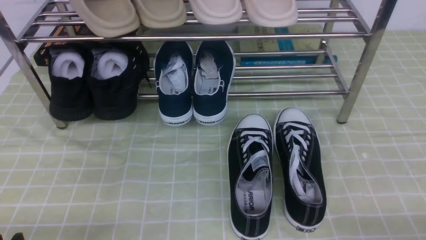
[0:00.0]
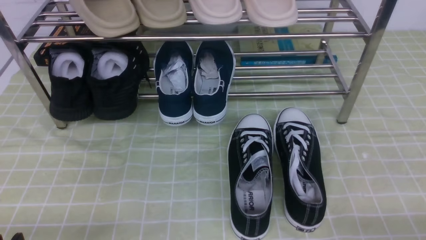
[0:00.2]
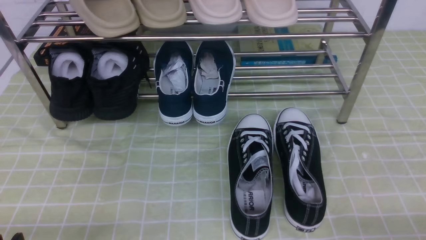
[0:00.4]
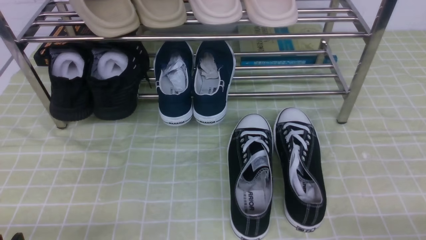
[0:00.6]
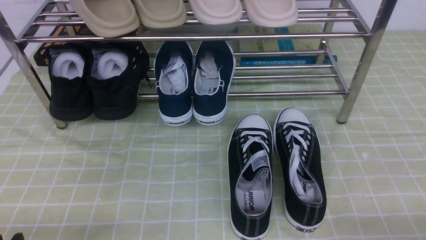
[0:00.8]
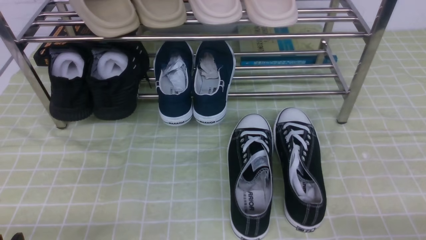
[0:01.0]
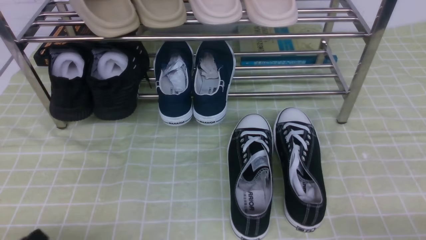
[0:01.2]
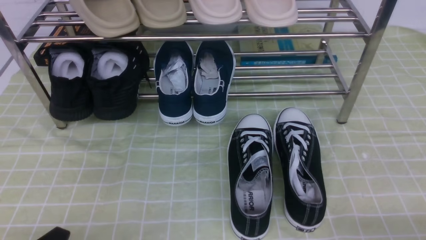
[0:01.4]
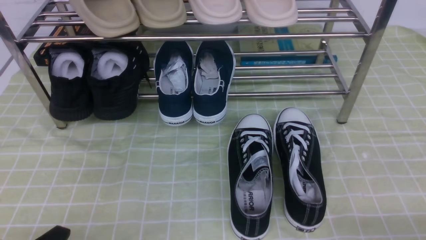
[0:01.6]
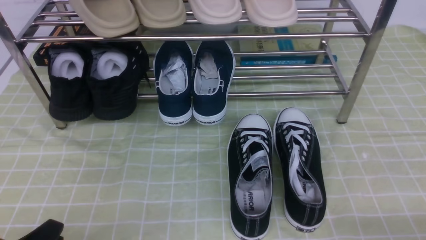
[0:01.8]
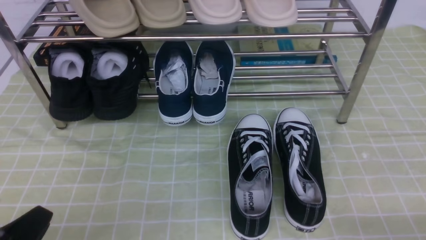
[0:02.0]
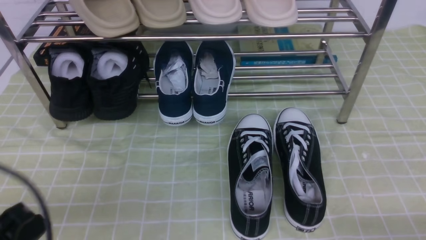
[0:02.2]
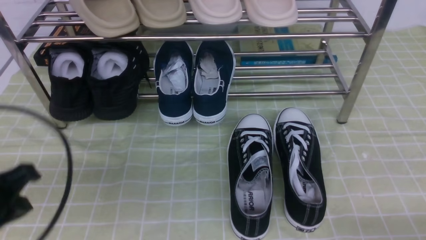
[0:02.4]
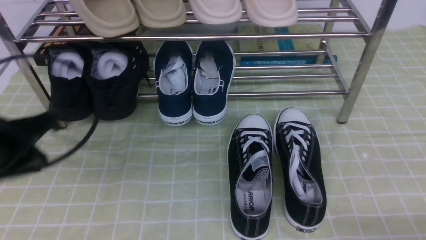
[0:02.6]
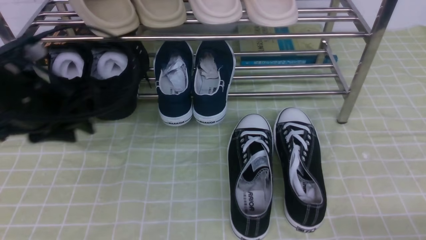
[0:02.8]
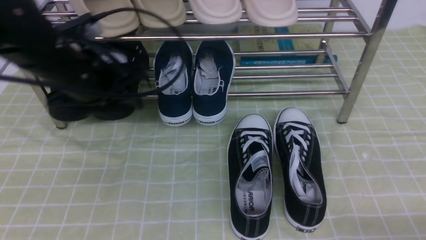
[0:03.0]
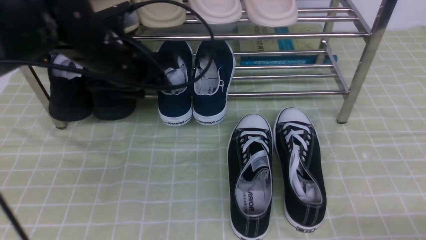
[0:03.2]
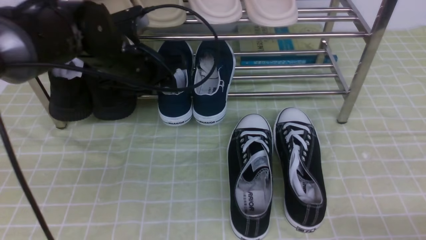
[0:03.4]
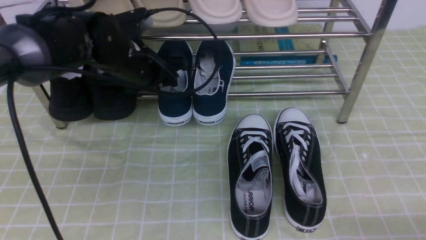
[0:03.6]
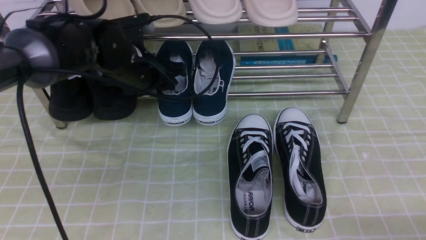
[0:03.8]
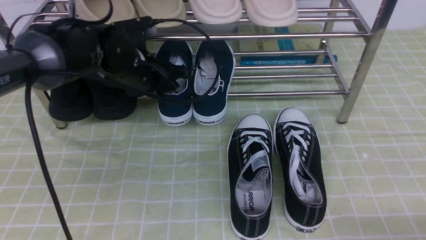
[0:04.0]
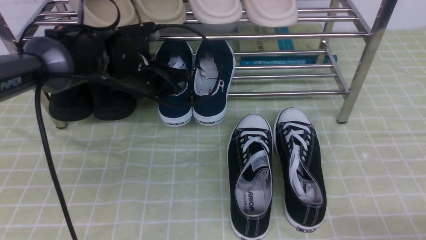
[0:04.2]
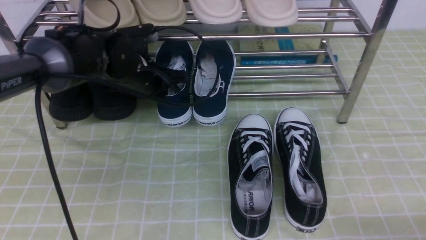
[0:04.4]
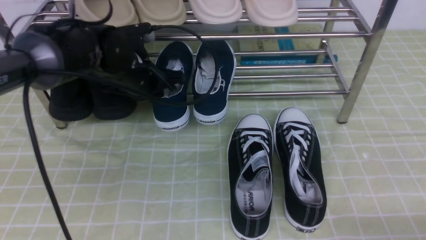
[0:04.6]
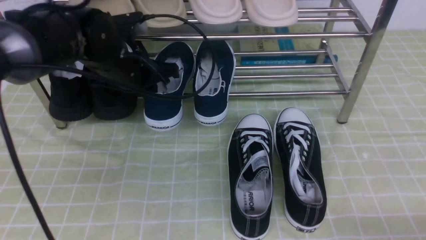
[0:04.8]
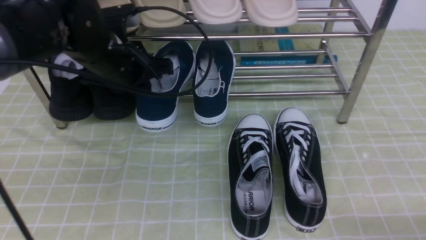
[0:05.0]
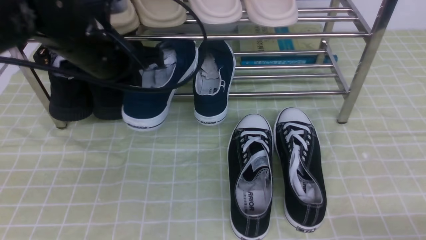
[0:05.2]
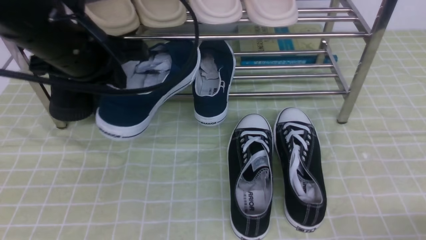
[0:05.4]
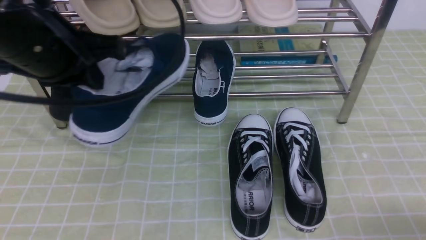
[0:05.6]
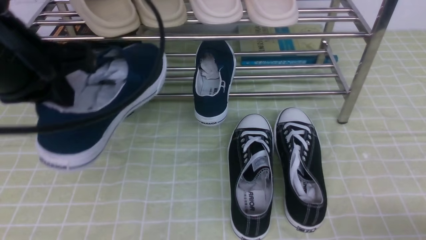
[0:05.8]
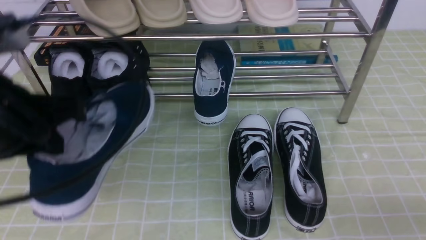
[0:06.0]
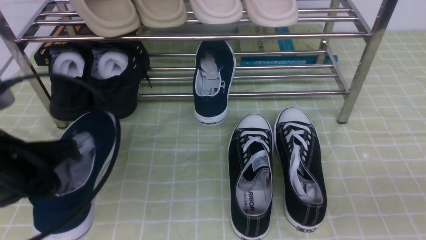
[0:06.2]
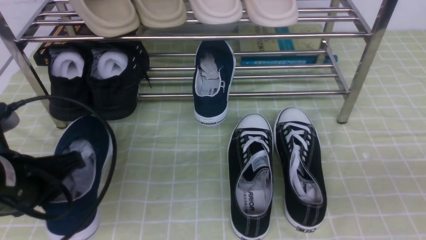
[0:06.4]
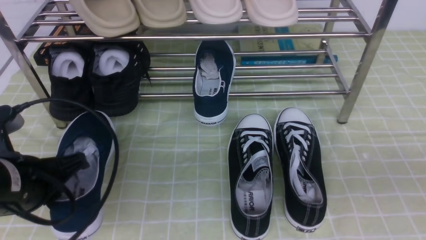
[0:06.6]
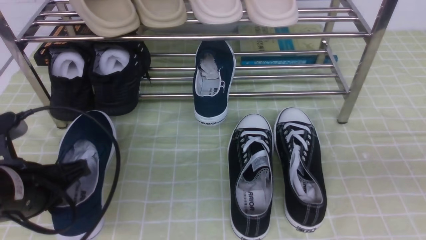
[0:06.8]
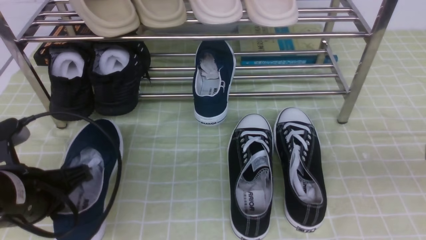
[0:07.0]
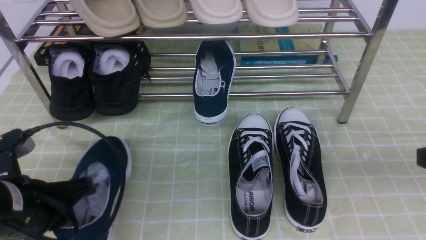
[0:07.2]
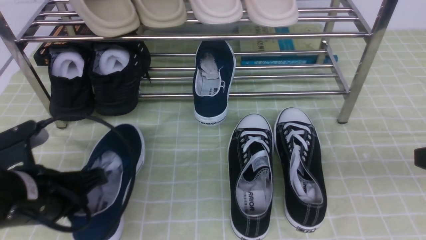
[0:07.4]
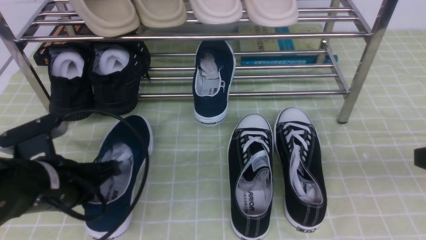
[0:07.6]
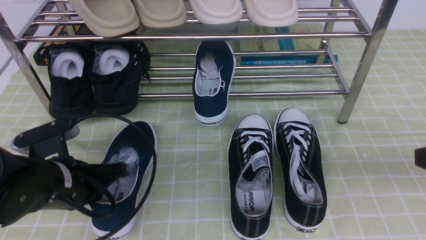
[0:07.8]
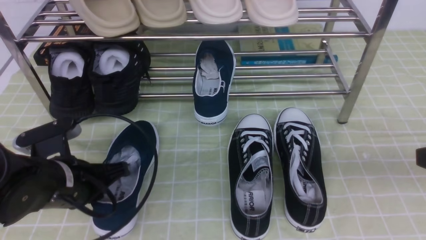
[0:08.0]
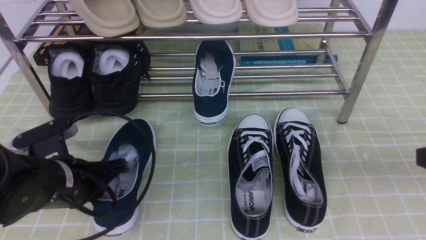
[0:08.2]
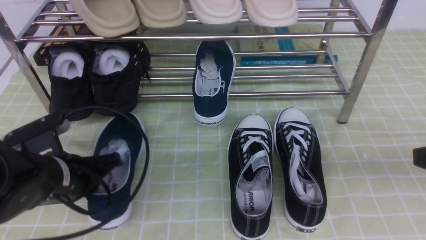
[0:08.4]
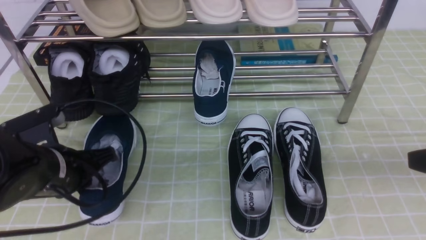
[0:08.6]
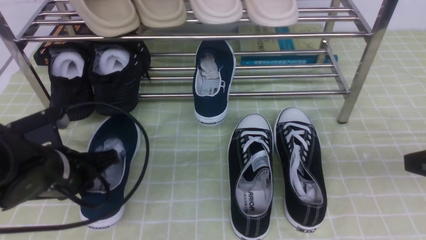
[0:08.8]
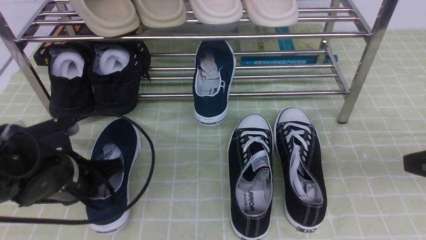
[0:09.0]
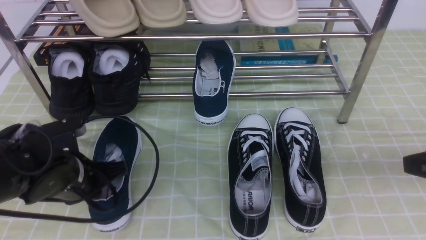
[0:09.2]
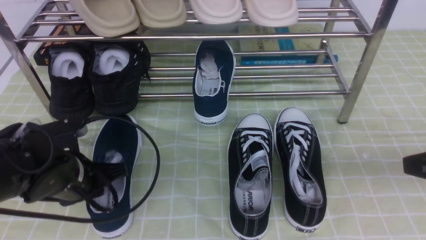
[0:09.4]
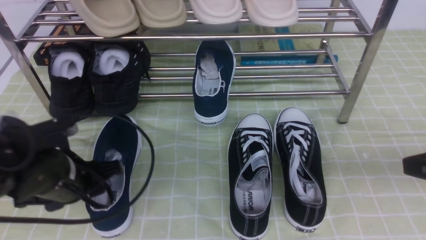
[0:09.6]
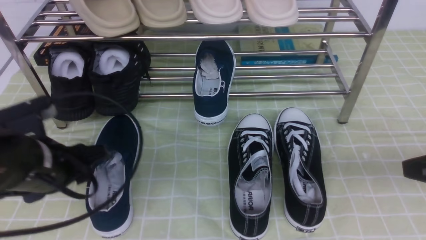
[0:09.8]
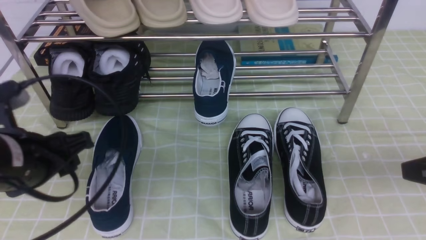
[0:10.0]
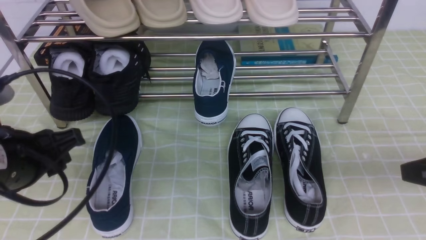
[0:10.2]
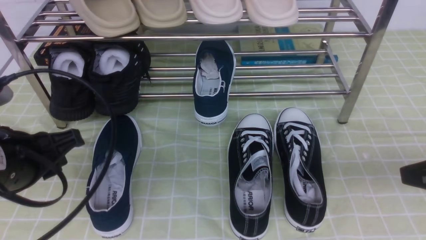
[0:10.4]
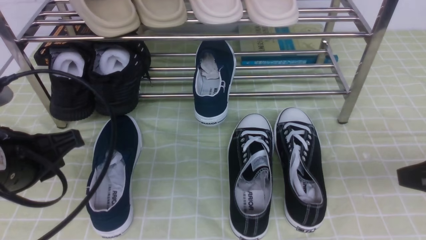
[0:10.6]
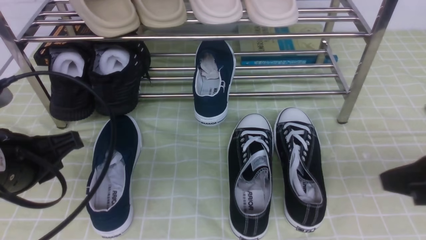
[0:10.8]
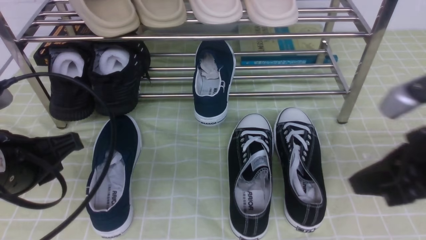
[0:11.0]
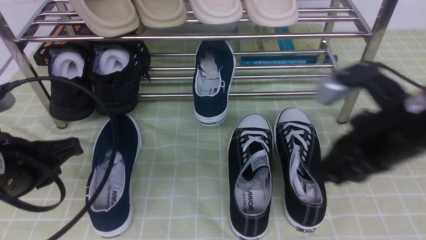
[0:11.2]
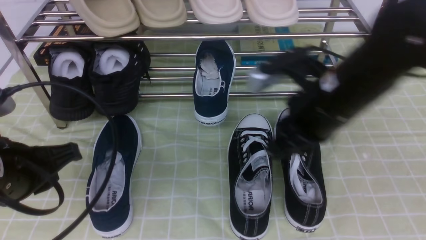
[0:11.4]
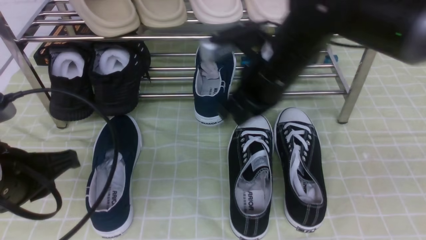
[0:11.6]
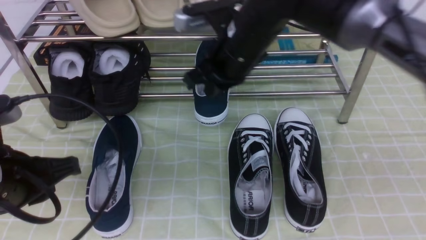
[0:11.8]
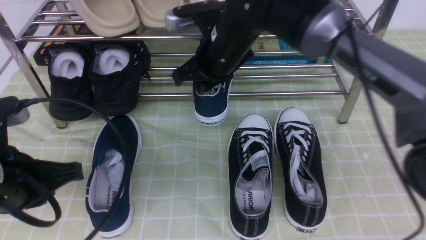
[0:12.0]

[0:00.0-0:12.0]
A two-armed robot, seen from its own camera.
Step, 0:00.0 to 0:04.4: use the left arm to clamp a shoe in the middle of the shoe rack.
Step, 0:04.6 to 0:09.8: Use your left arm to remove the clamped shoe from the shoe rack and put it down.
0:01.6 to 0:03.0: The left gripper heads forward and upward, covering approximately 30 cm, and closes, then opens again.
0:03.0 to 0:04.4: The left gripper shifts roughly 10 cm forward and downward, and closes.
0:04.4 to 0:06.0: The right gripper travels upward by roughly 5 cm, and closes, while the left gripper moves backward, upward and to the left, about 25 cm.
0:06.0 to 0:07.6: The left gripper heads downward, covering approximately 15 cm, while the right gripper travels forward and upward by approximately 15 cm, and closes up.
0:07.6 to 0:09.0: The grippers make only small movements.
0:09.0 to 0:10.4: The left gripper travels upward and backward by about 10 cm, and opens.
0:10.4 to 0:12.0: The right gripper shifts some 35 cm to the left and forward. The left gripper closes up.

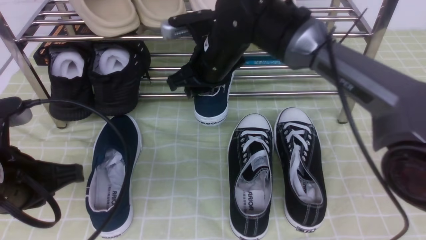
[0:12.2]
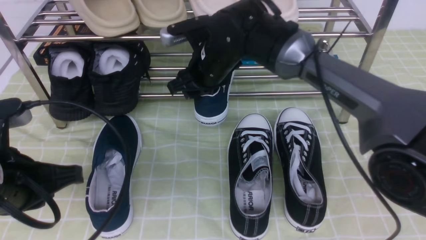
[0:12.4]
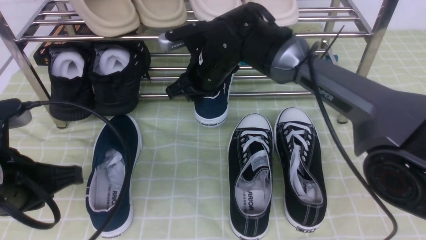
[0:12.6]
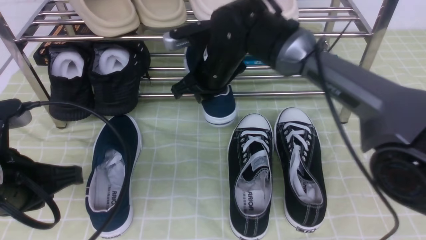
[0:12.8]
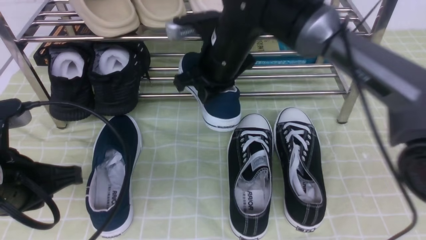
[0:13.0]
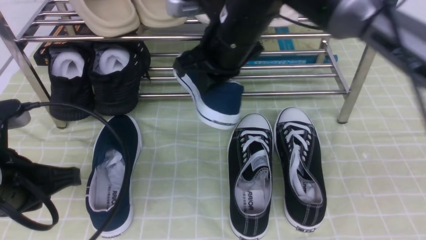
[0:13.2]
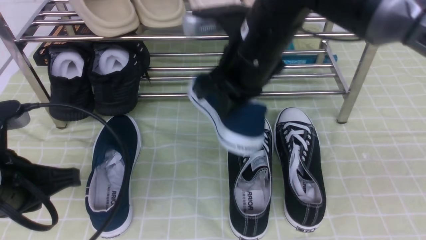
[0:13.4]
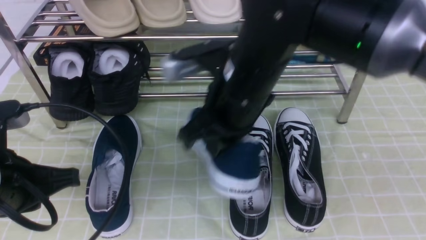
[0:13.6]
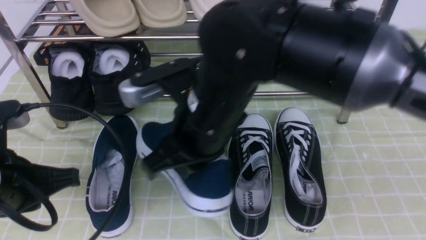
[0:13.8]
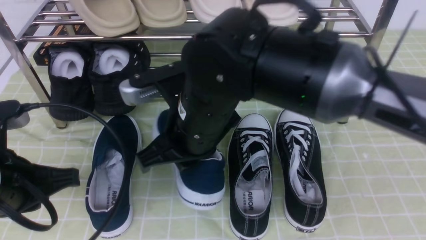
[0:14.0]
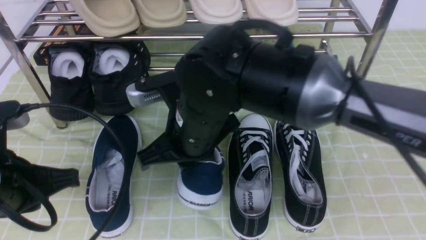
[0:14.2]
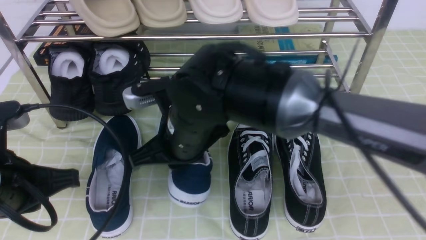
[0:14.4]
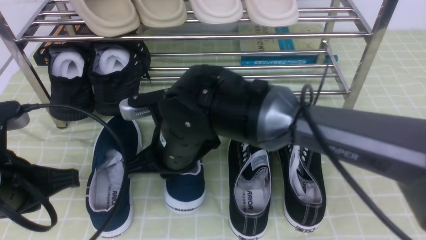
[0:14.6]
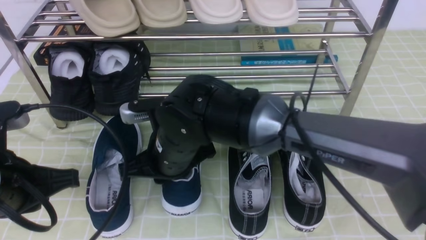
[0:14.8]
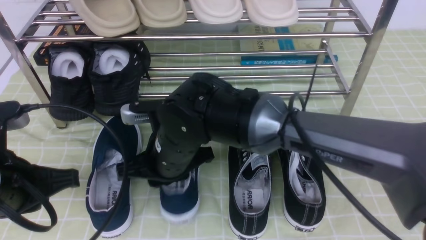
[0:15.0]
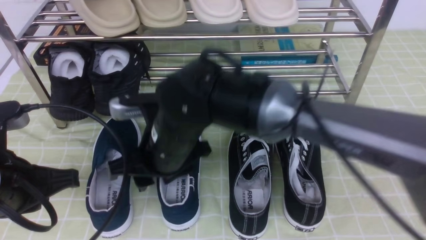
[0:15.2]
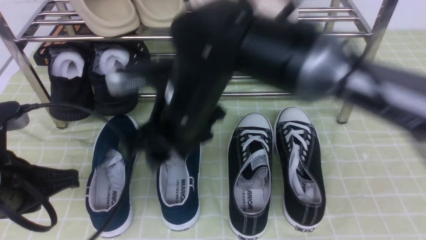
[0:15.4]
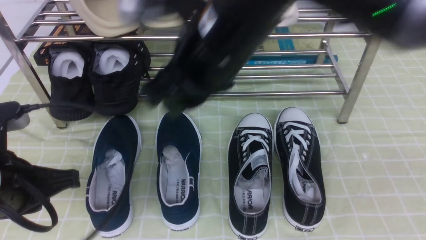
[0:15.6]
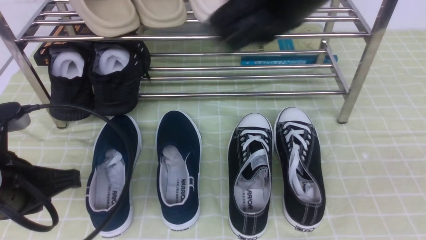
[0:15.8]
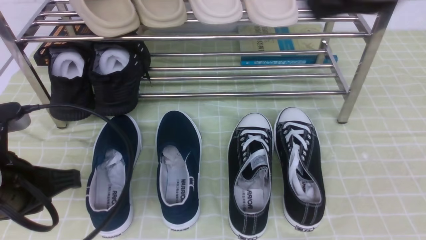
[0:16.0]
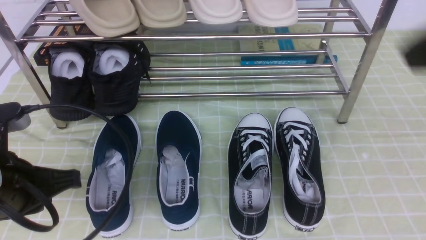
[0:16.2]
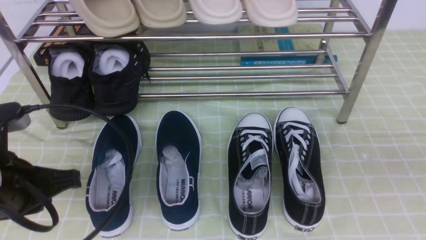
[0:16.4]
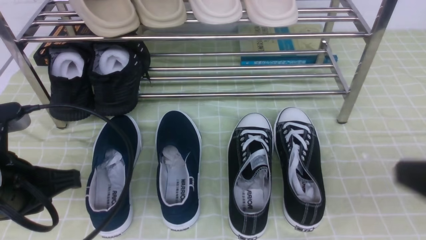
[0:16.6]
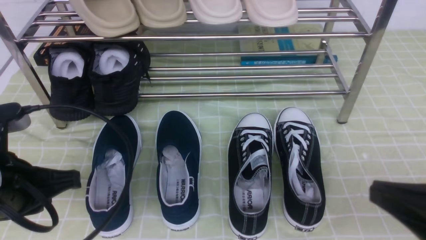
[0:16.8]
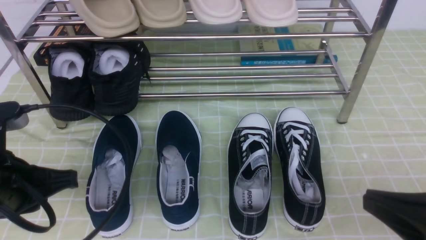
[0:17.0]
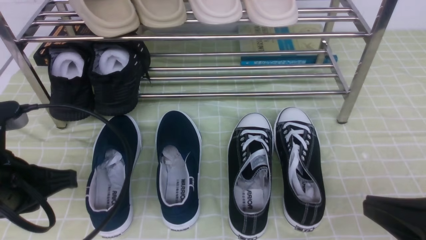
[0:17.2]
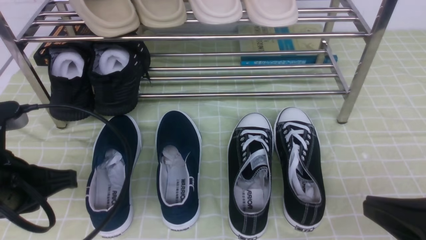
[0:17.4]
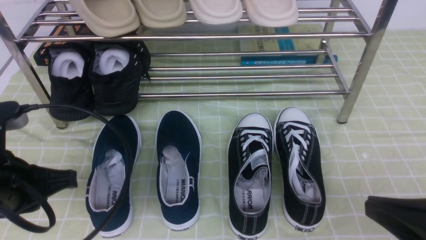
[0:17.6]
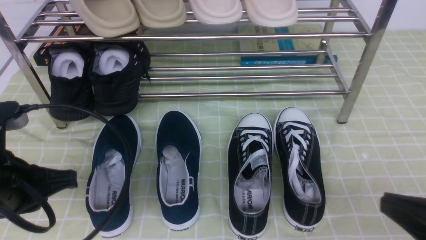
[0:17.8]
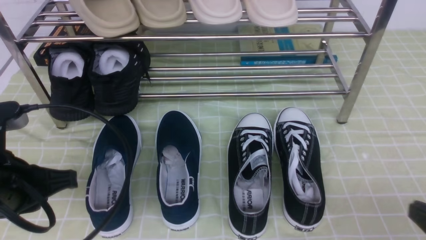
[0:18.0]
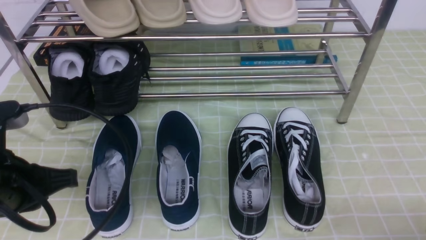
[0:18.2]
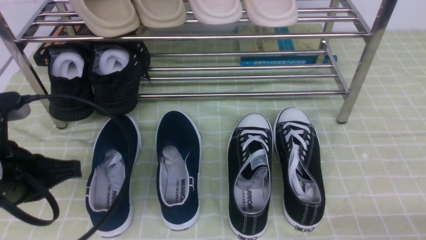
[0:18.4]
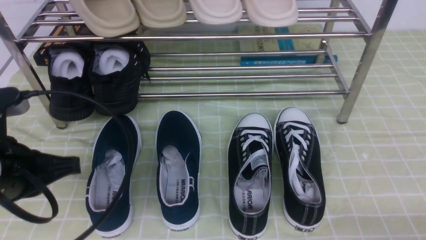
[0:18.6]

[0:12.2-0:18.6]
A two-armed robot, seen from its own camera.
Step, 0:12.8 to 0:15.4: use the right arm to take out the clamped shoe from the shoe rack and put it down.
0:12.2 to 0:13.8: The right gripper heads backward, covering about 15 cm, and closes.
0:13.8 to 0:15.4: The right gripper travels downward and back again, roughly 10 cm each way, and opens.
0:15.4 to 0:17.0: The right gripper heads to the right and backward, covering some 30 cm, and closes.
0:17.0 to 0:18.6: The right gripper shifts about 15 cm downward and to the right.
